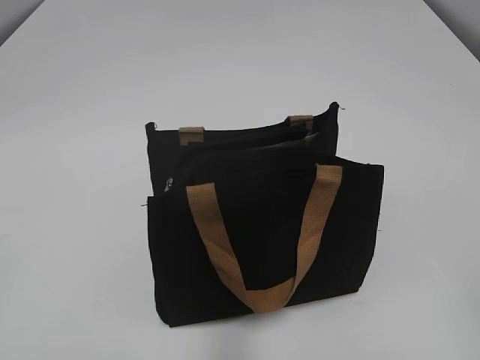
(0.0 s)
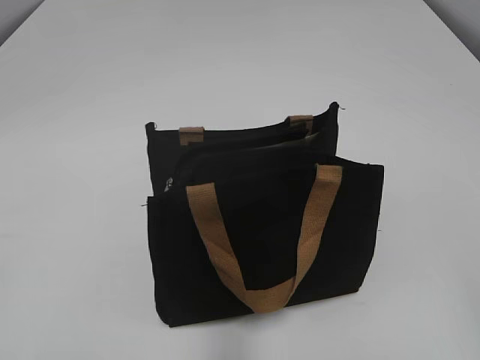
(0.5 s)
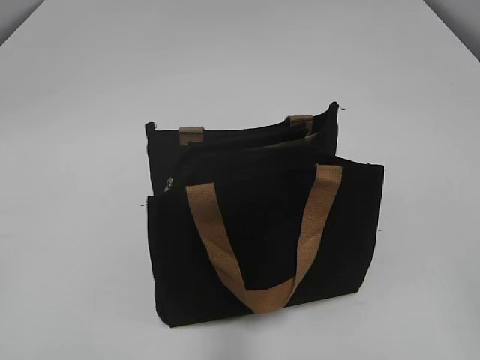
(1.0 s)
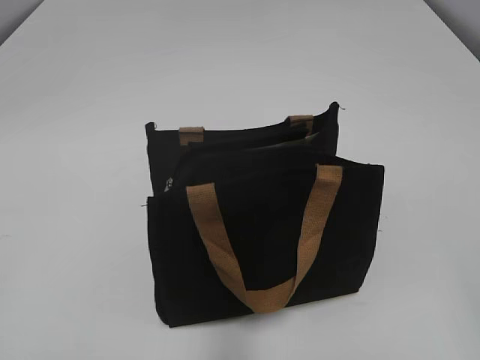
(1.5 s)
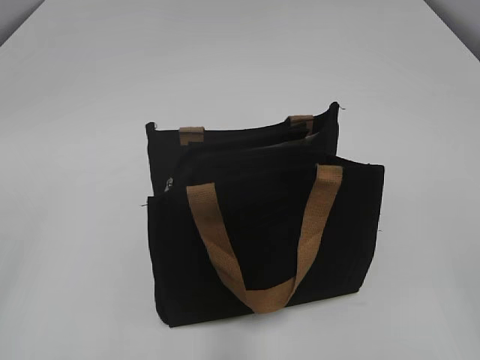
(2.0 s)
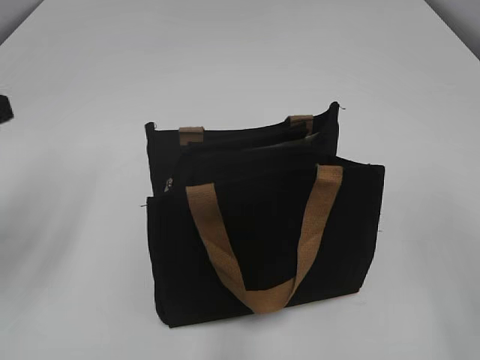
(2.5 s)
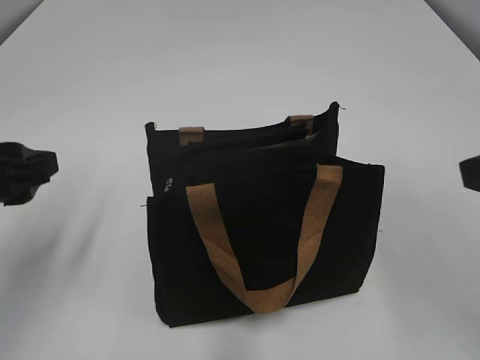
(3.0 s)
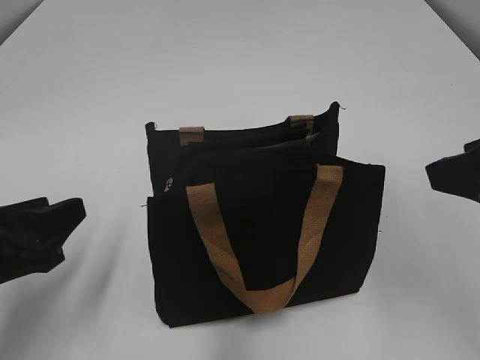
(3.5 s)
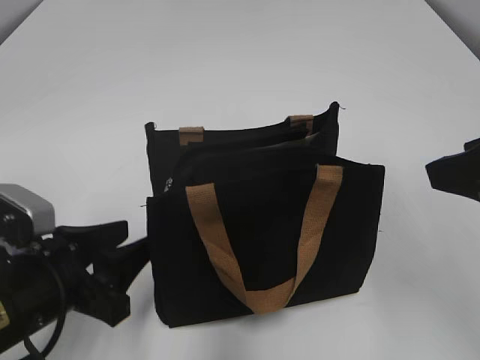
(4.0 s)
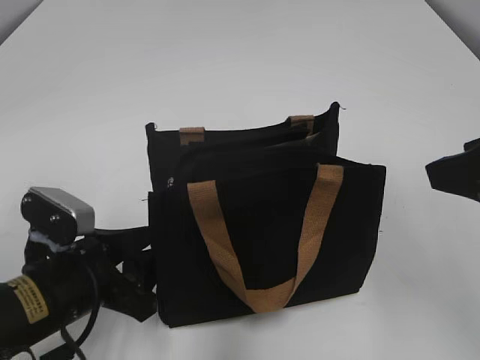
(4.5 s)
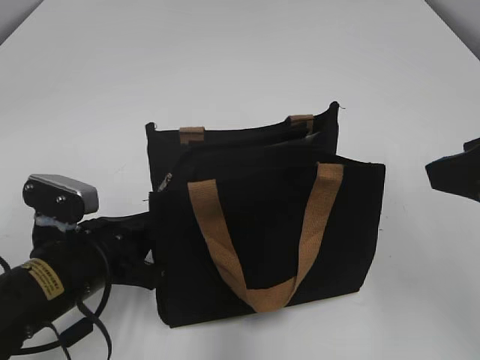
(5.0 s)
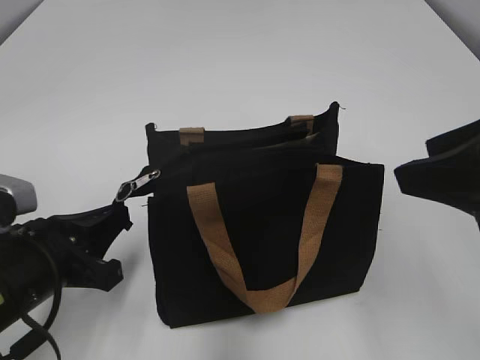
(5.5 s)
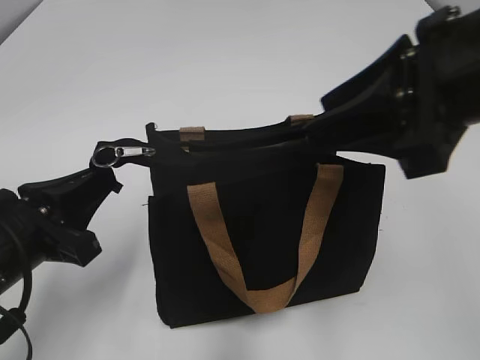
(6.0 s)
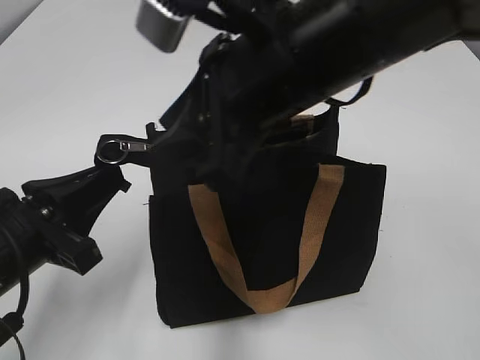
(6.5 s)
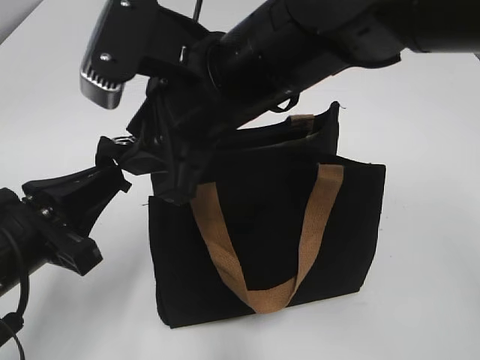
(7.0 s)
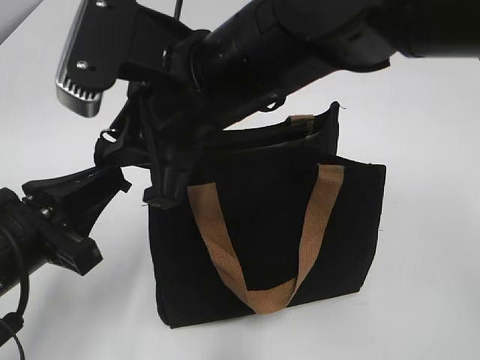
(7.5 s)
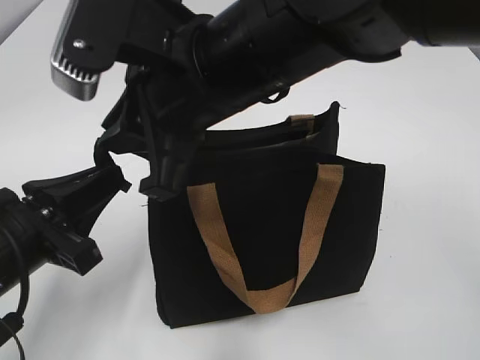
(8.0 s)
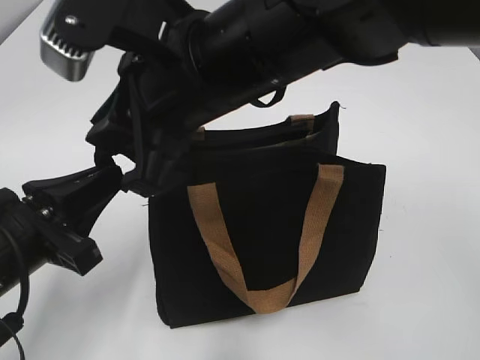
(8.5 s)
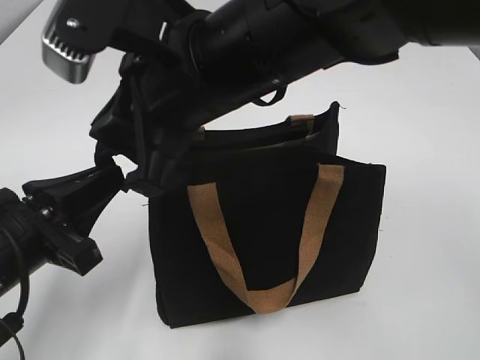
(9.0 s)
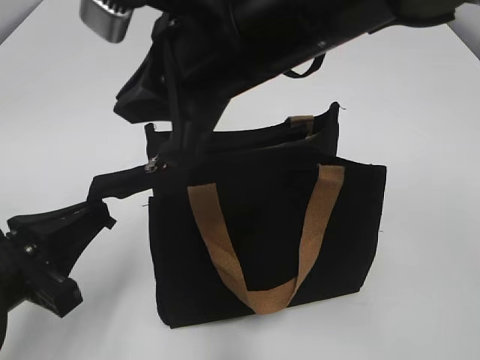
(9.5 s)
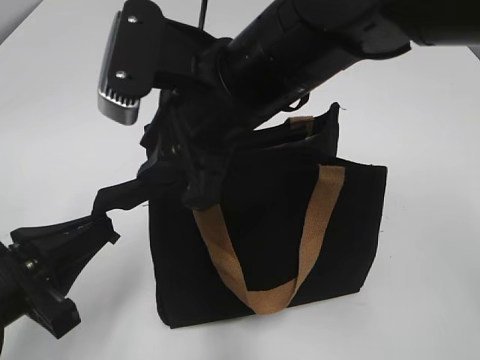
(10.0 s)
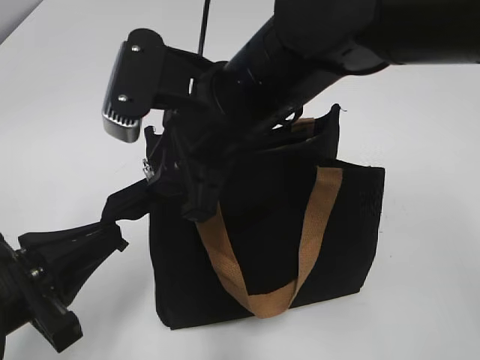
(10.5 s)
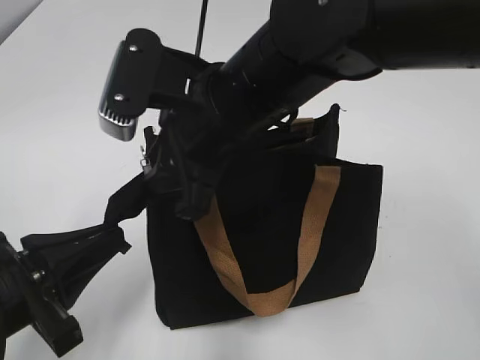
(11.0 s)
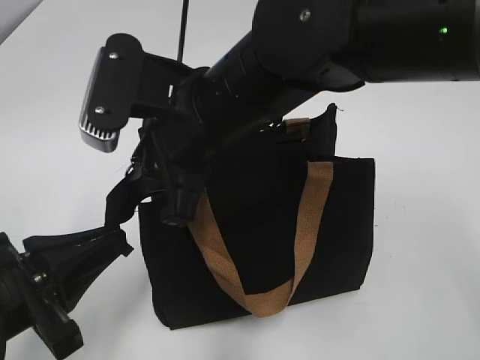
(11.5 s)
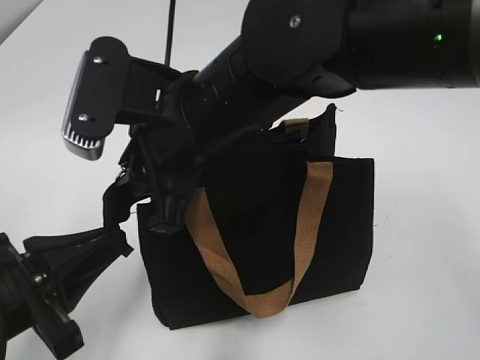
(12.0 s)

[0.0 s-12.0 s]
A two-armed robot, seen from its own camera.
2.0 to 4.0 s: The right gripper shifts approximately 15 cm forward and to the left; the left gripper shifts some 25 cm downward, forward and to the right.
4.0 to 6.0 s: The right gripper goes some 5 cm to the left. The left gripper closes.
6.0 to 8.0 s: The right gripper shifts about 15 cm to the left, and closes its fingers.
8.0 to 10.0 s: The right gripper opens up.

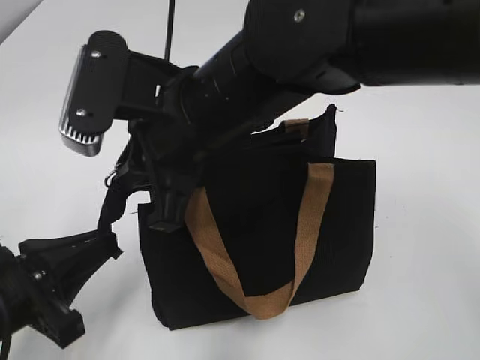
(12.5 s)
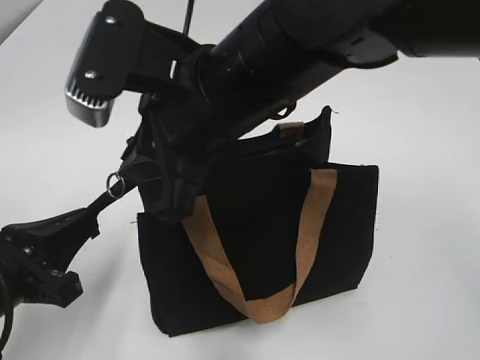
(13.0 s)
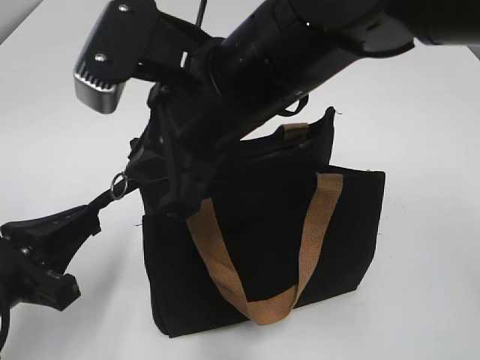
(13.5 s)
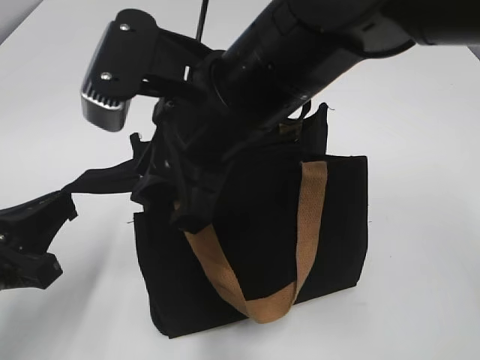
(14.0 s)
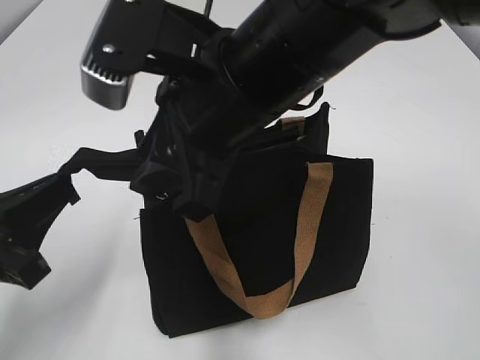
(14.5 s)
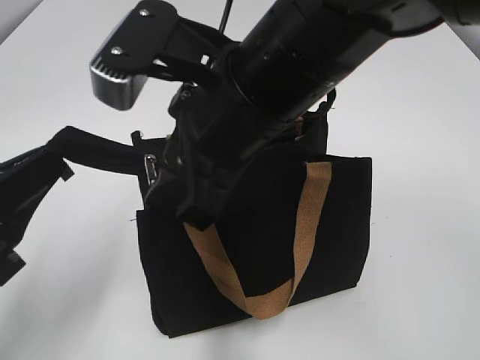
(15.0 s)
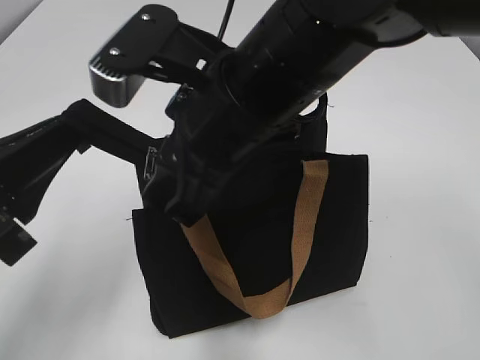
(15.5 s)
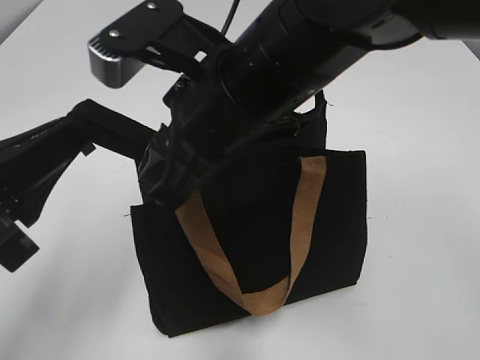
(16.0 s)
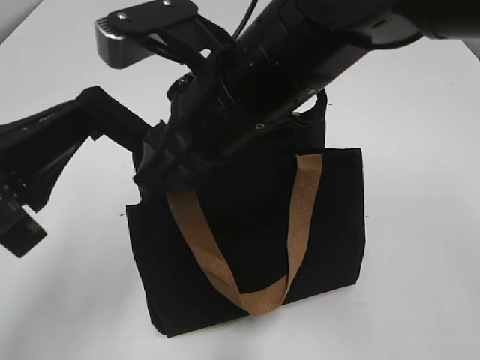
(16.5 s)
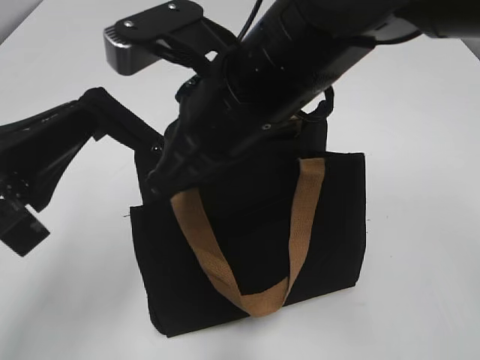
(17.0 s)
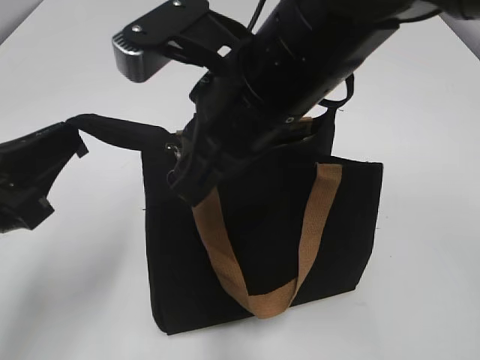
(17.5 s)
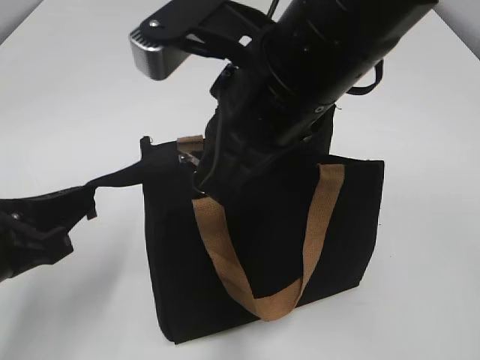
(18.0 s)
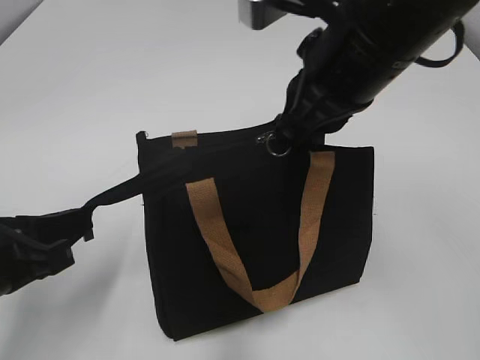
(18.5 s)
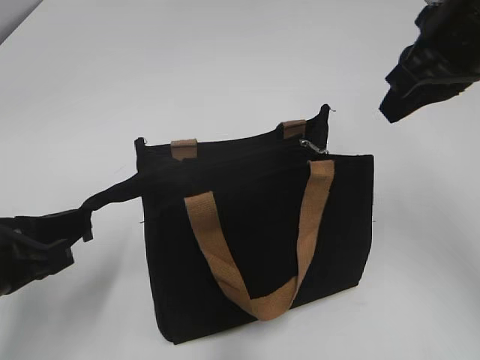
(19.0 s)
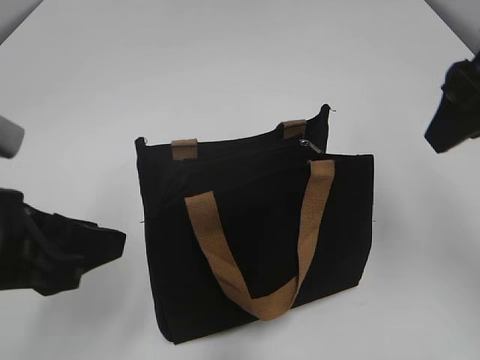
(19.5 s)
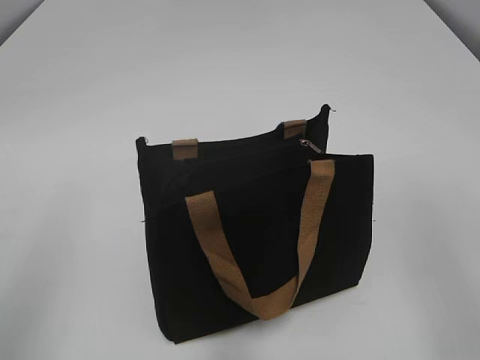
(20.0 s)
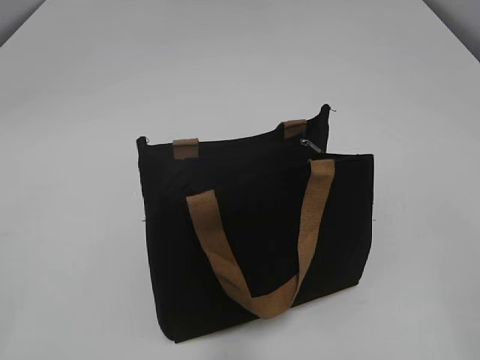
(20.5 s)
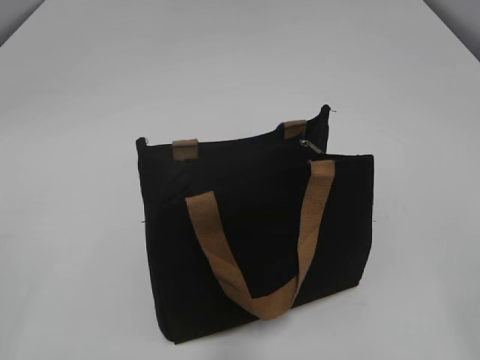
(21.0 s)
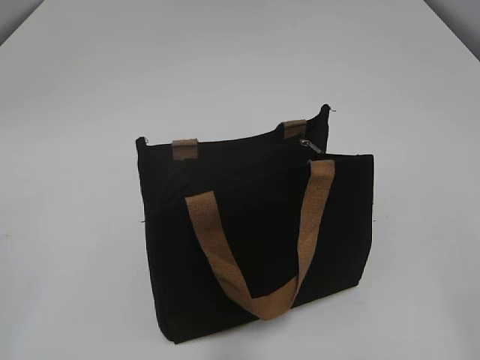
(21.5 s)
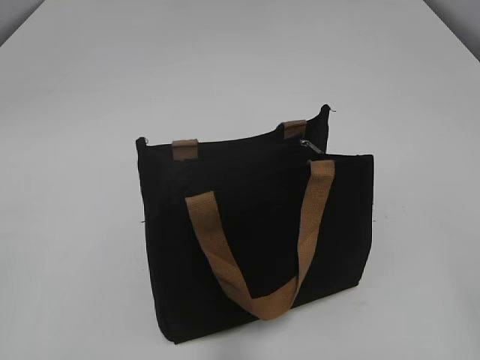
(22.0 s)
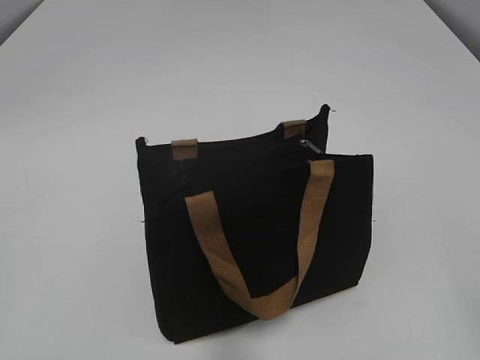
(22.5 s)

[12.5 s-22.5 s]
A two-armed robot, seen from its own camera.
Step, 12.5 to 18.5 s: Zip up the bag with your right hand.
12.5 to 14.5 s: The right gripper ends up some 5 cm from where it was, and opens up.
14.5 to 16.5 s: The left gripper goes about 5 cm upward.
16.5 to 18.5 s: The left gripper heads downward, covering about 5 cm; the right gripper moves to the right, about 10 cm, and closes up.
18.5 to 20.5 s: The left gripper is displaced backward, to the left and upward by roughly 20 cm, and opens; the right gripper is displaced backward and to the right by roughly 35 cm, and opens up.
